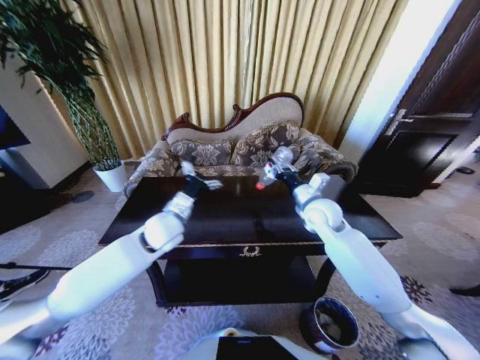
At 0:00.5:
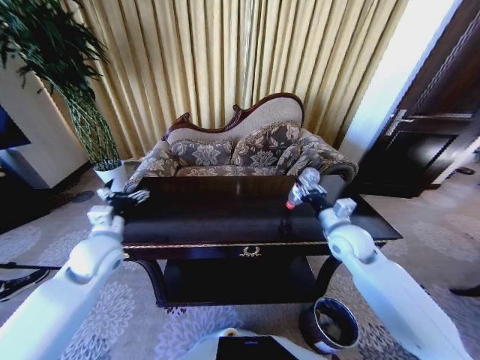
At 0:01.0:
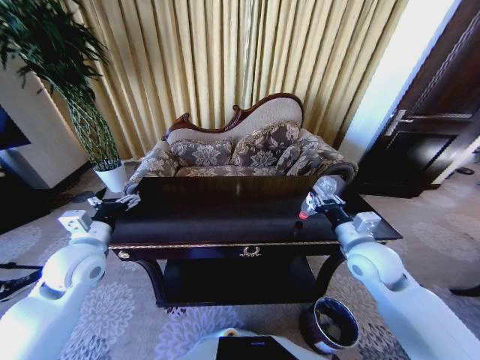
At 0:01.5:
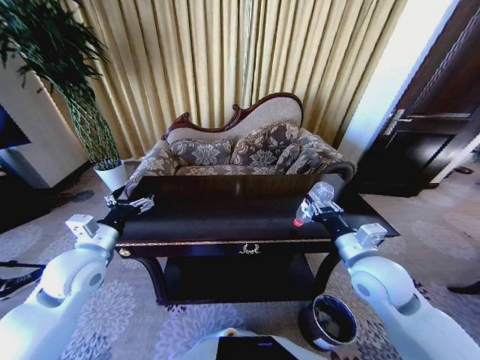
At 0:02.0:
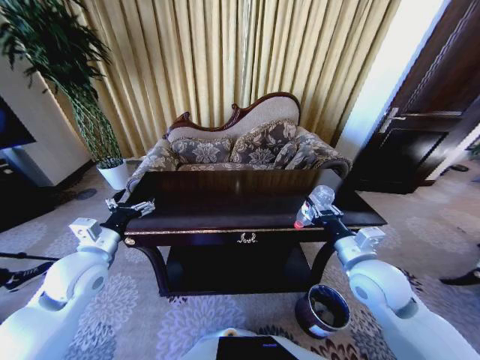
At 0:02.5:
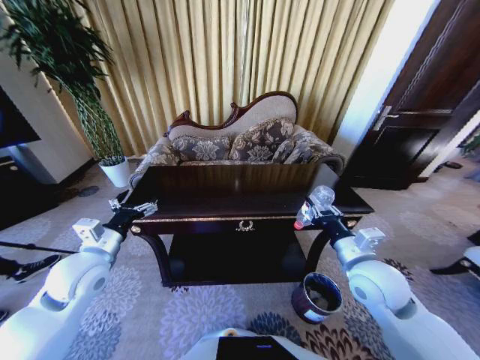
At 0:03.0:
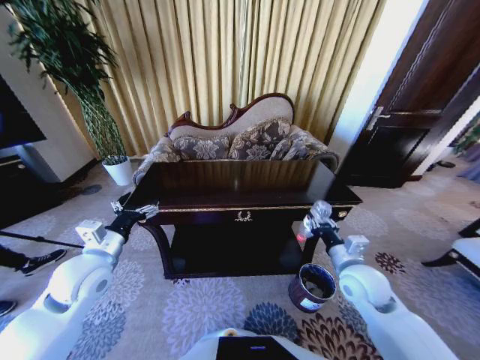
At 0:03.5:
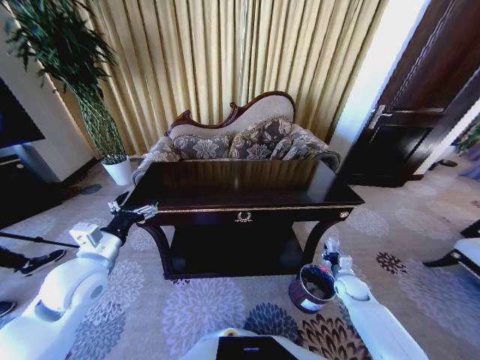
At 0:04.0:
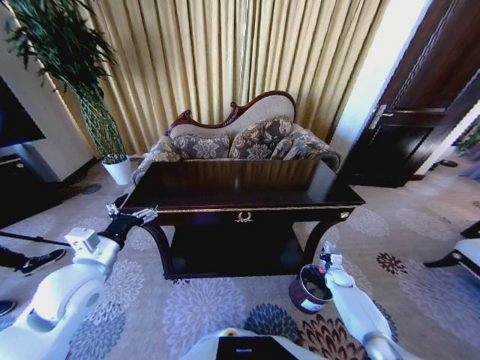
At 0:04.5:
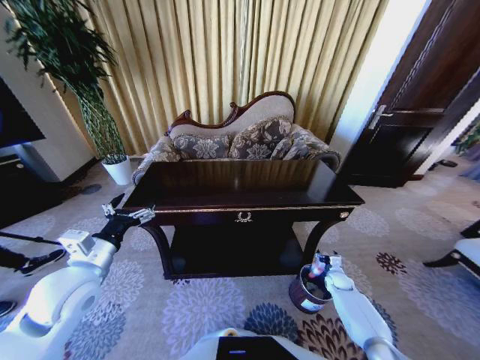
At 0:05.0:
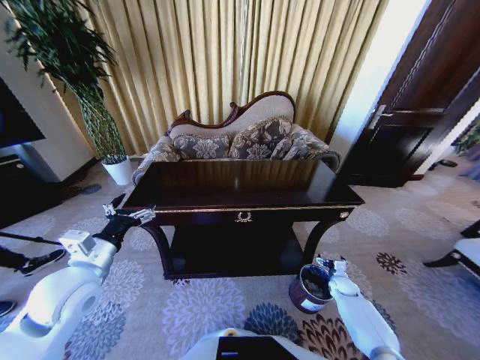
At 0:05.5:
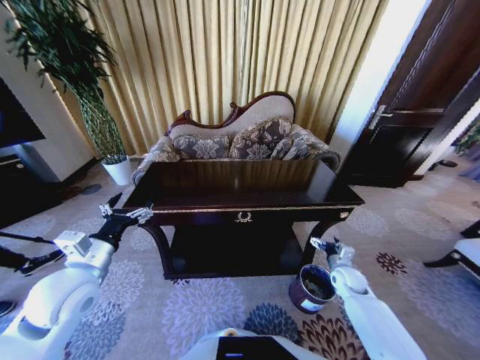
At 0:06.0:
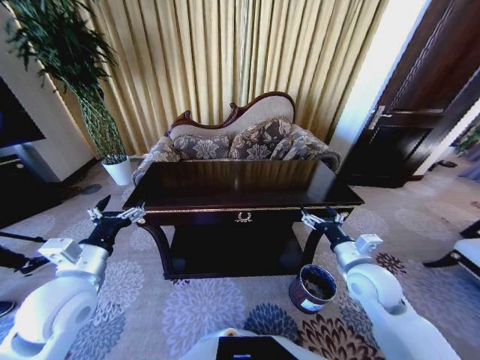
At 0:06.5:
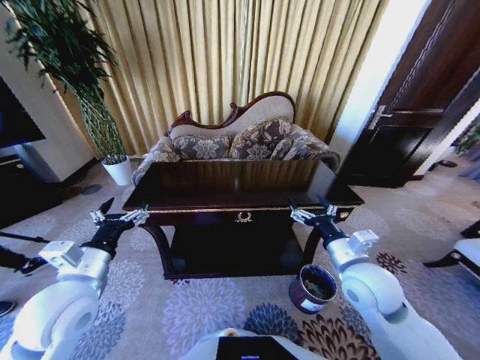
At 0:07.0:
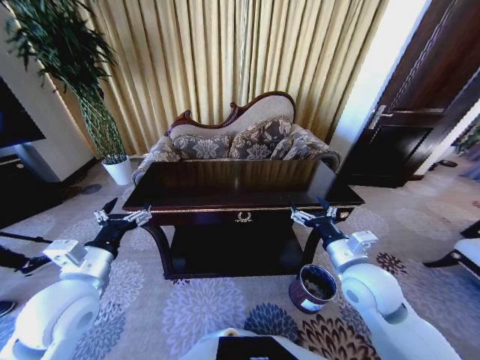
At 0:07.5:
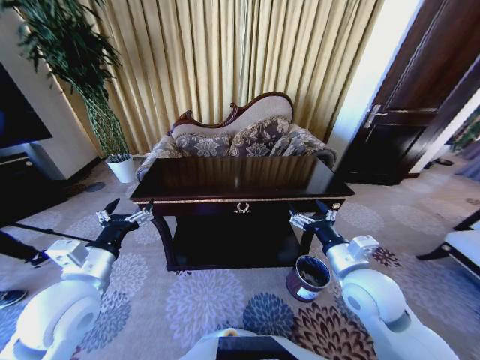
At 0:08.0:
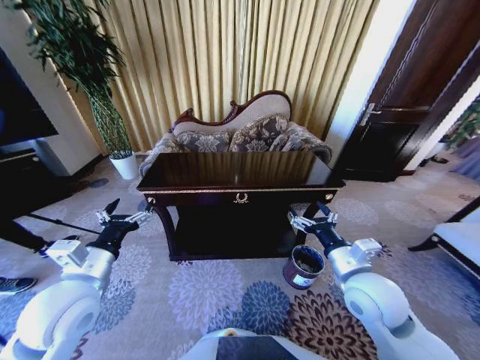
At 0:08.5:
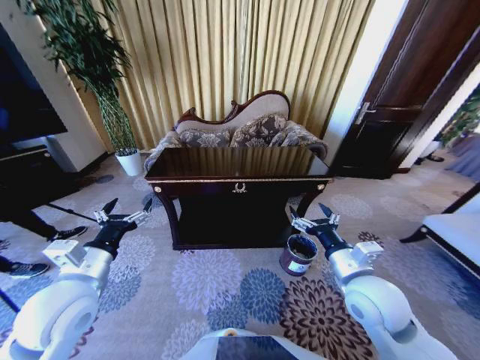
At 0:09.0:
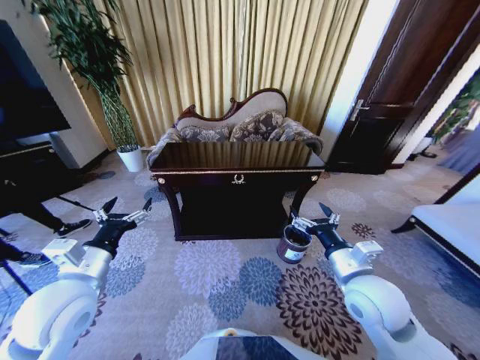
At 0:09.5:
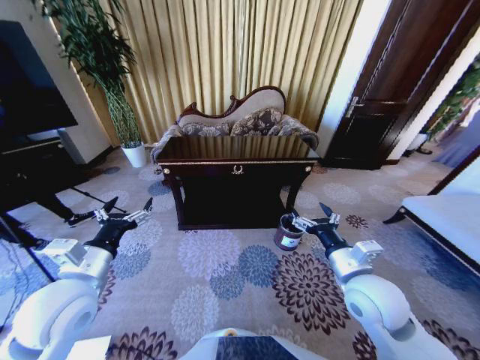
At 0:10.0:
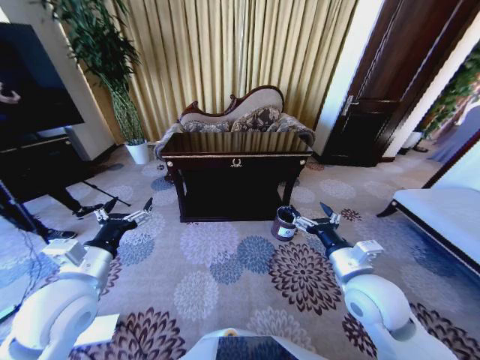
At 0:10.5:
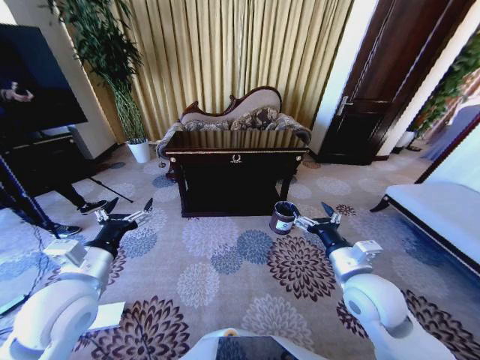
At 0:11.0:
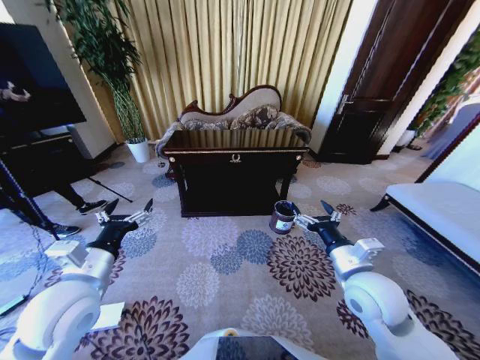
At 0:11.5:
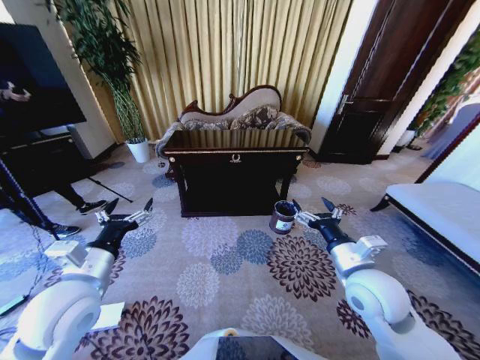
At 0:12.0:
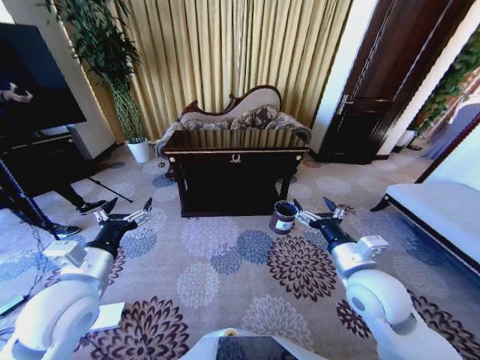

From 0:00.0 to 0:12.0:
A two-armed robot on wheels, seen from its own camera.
Task of the whole recording: Move to the front of the table and place the trash on the table into the trash bin.
From 0:00.0 to 0:02.0: The right gripper is displaced backward by about 20 cm. The left gripper heads to the left and backward, covering roughly 20 cm.
From 0:02.0 to 0:04.0: The right gripper moves downward and to the right, roughly 40 cm.
From 0:04.0 to 0:06.0: The right gripper shifts about 30 cm upward and to the left, and opens its fingers.
From 0:06.0 to 0:08.0: The right gripper shifts about 5 cm to the left.

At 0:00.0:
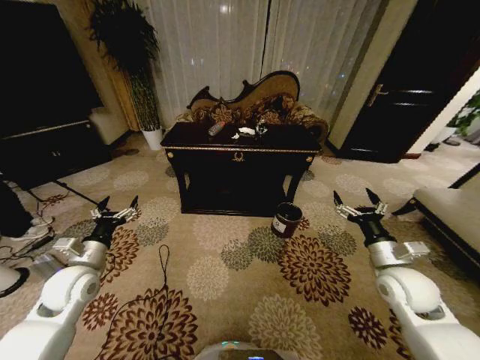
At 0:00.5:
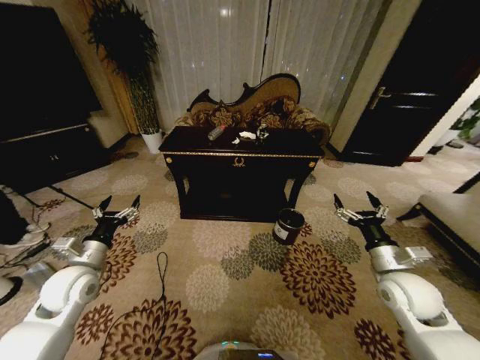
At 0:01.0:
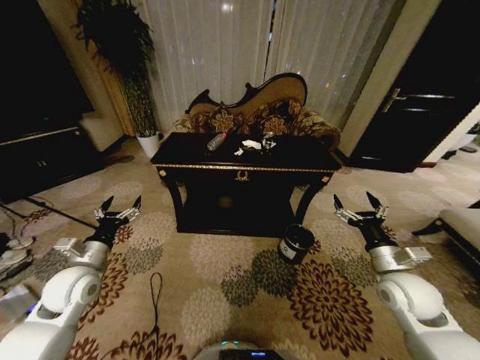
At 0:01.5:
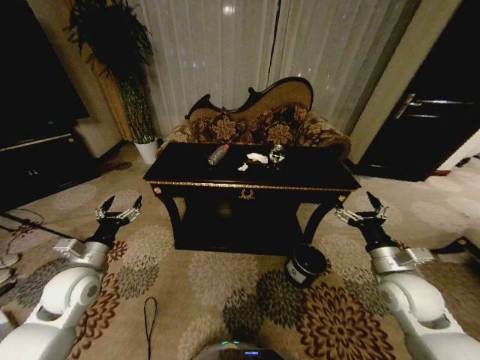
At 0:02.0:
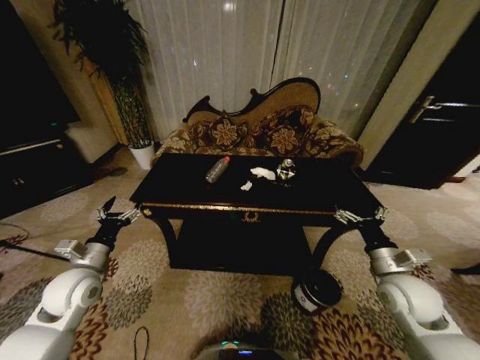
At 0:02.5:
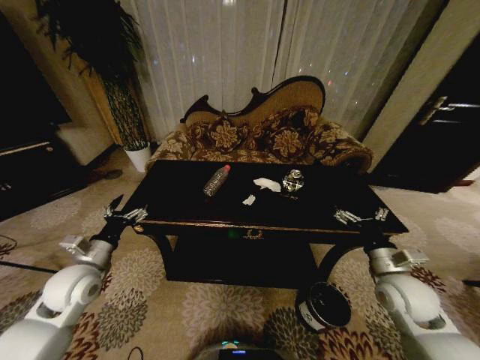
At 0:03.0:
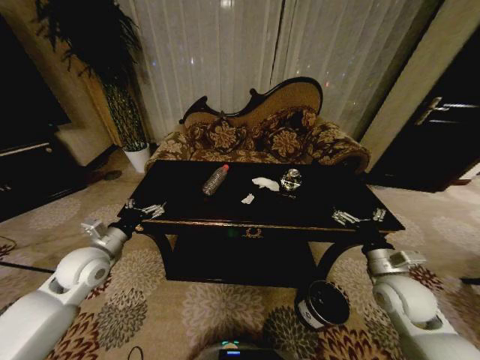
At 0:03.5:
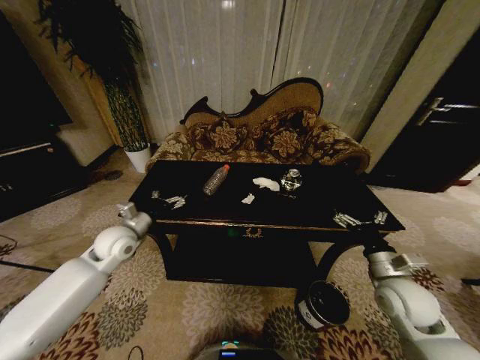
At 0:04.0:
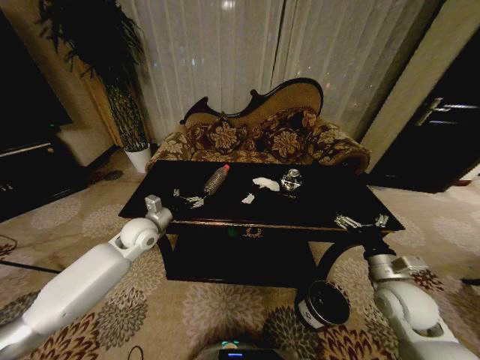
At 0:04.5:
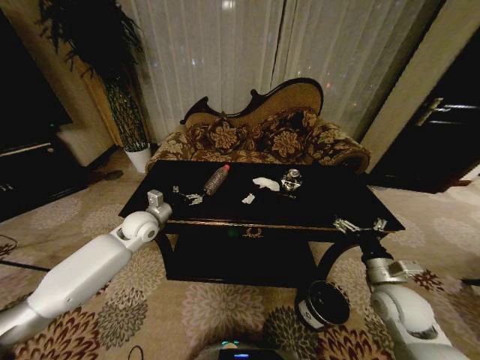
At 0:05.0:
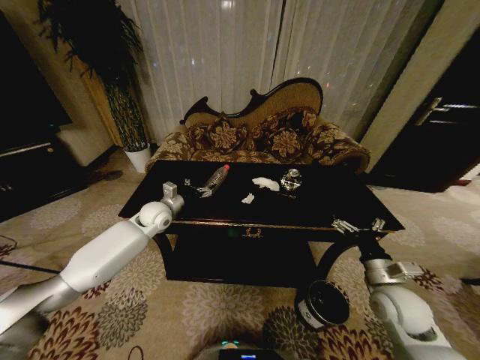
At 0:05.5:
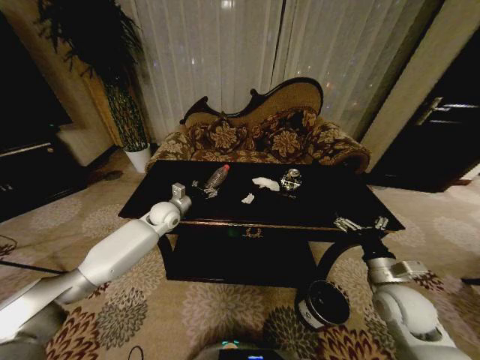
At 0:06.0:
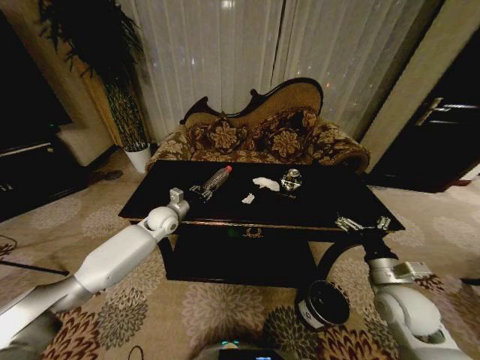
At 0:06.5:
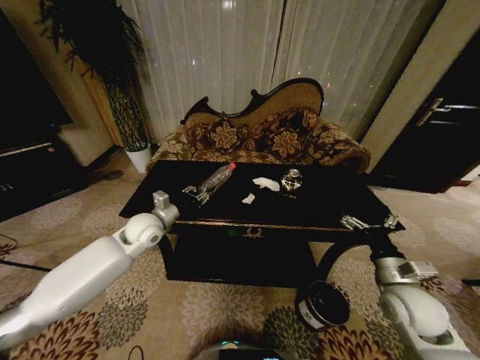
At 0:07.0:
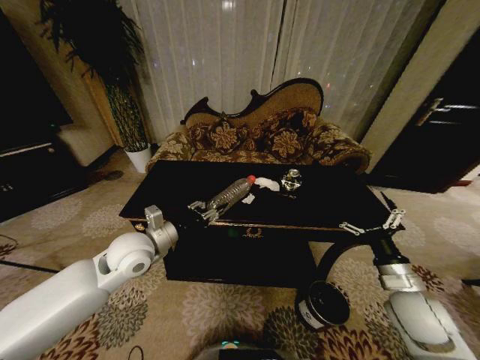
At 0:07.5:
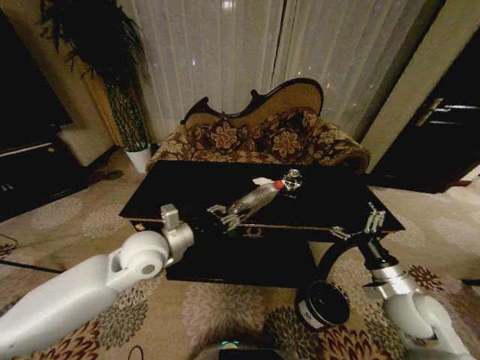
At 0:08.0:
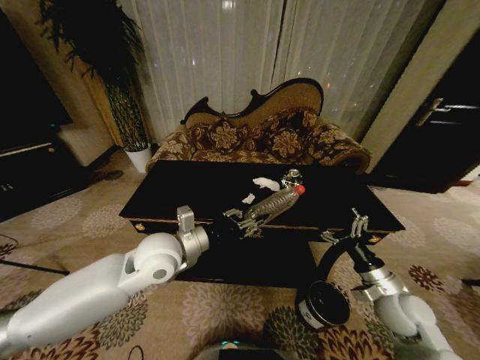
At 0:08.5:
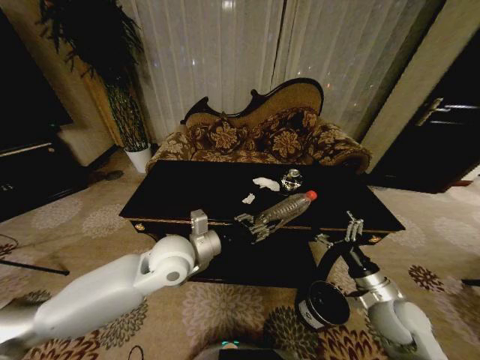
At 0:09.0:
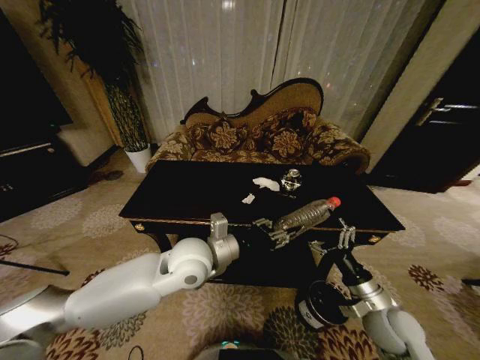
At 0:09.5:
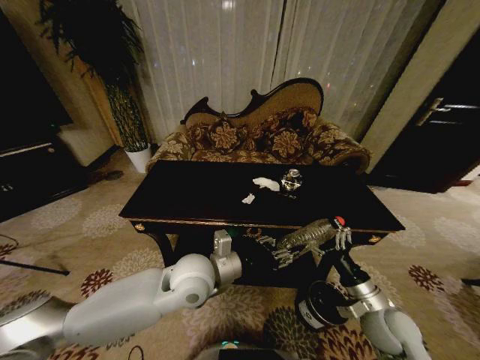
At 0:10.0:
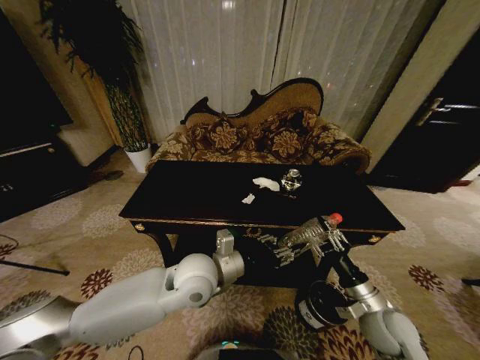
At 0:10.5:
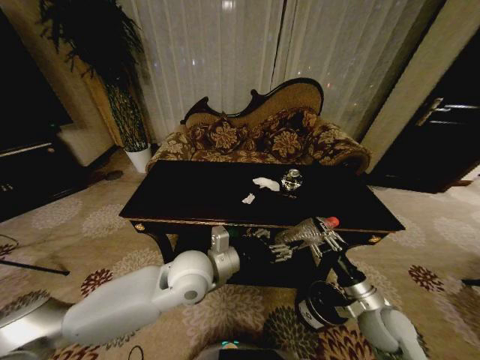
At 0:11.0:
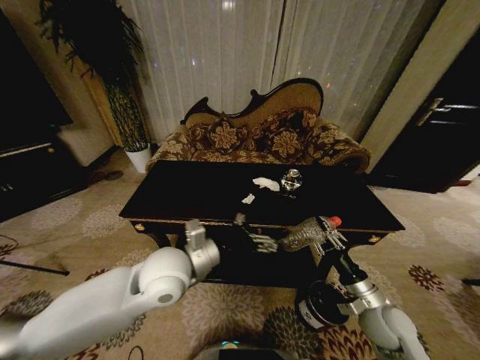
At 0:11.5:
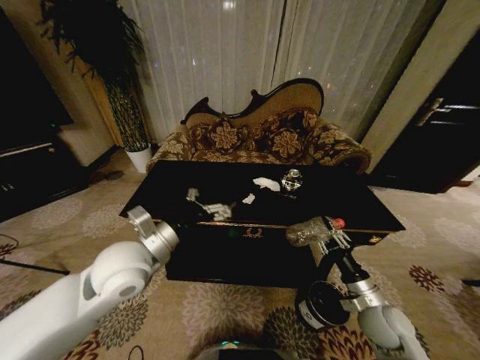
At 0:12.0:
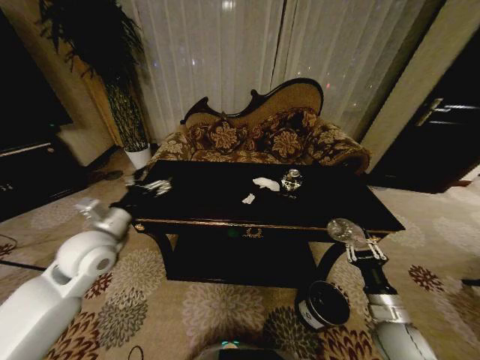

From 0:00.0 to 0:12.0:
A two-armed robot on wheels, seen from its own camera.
Task of the whole recording: Move to the front of the table and place the trash on the table into the trash bin.
From 0:02.0 to 0:04.0: The left gripper goes approximately 20 cm forward and to the right.
From 0:04.0 to 0:06.0: The left gripper is displaced forward by roughly 10 cm, and closes its fingers.
From 0:06.0 to 0:08.0: The left gripper moves backward and upward, approximately 20 cm.
From 0:08.0 to 0:10.0: The right gripper moves some 5 cm, and closes up. The left gripper heads to the right, covering roughly 10 cm.
From 0:10.0 to 0:12.0: The left gripper shifts roughly 25 cm to the left, and opens up. Meanwhile the right gripper ends up approximately 5 cm from where it was.

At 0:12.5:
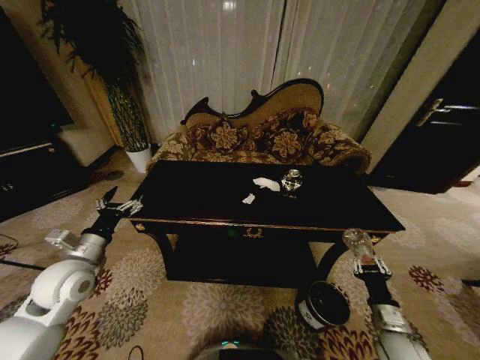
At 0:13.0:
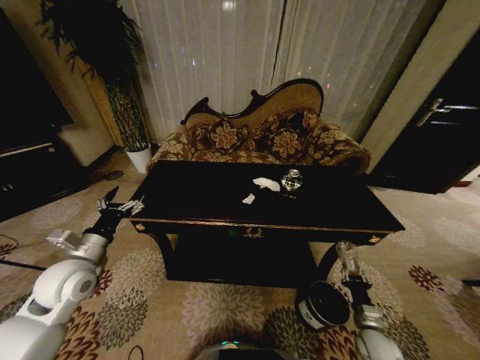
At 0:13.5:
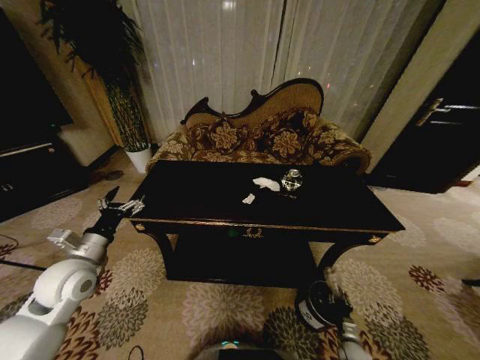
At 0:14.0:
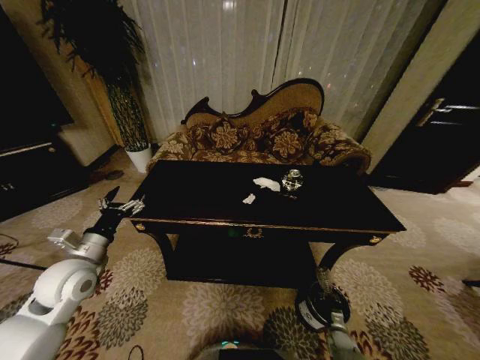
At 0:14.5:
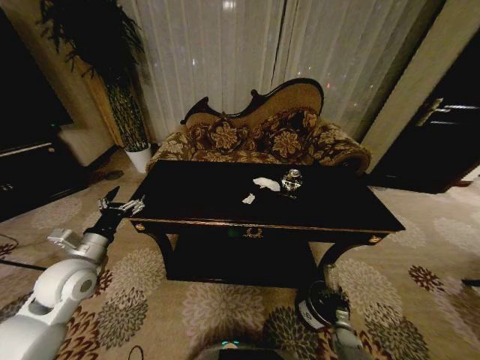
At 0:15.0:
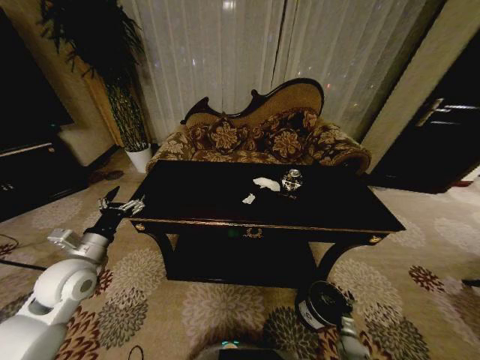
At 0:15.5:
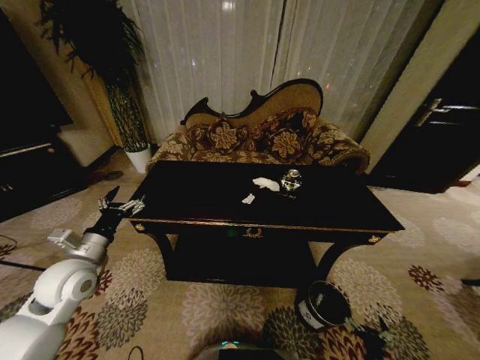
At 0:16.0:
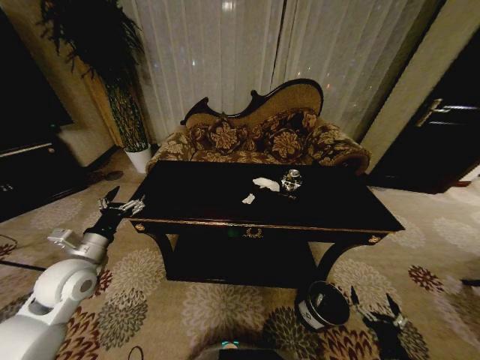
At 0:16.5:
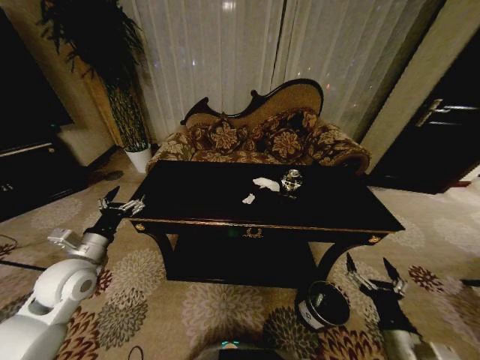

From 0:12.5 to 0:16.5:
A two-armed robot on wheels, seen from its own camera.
Task of the whole recording: Move to the front of the table and place the trash on the table into the trash bin.
From 0:12.5 to 0:14.5: The right gripper goes about 25 cm downward.
From 0:14.5 to 0:16.5: The right gripper travels upward by roughly 35 cm, and opens up.
